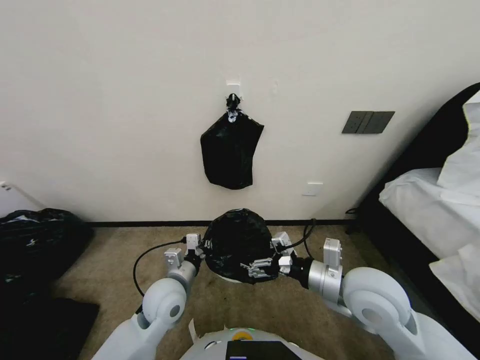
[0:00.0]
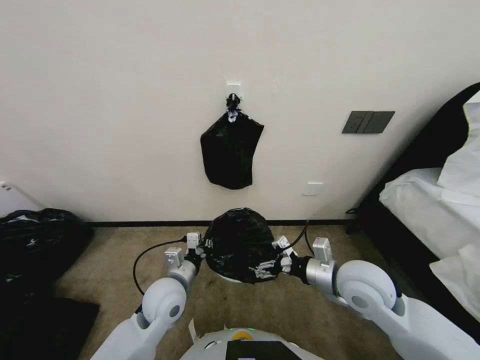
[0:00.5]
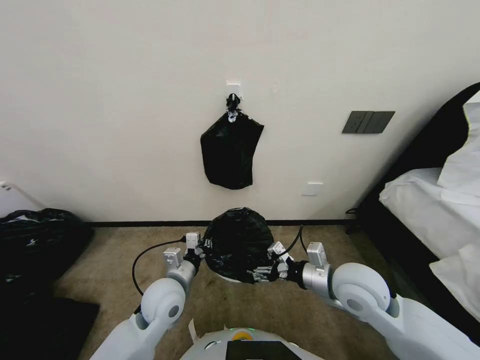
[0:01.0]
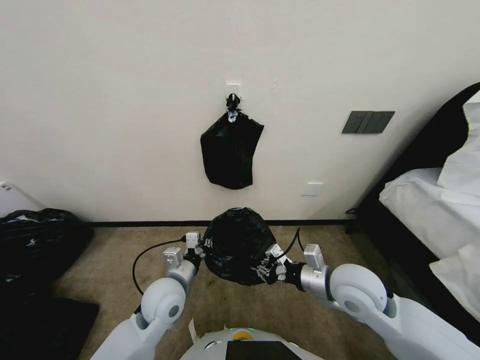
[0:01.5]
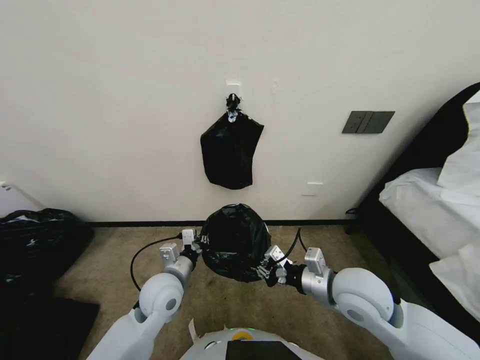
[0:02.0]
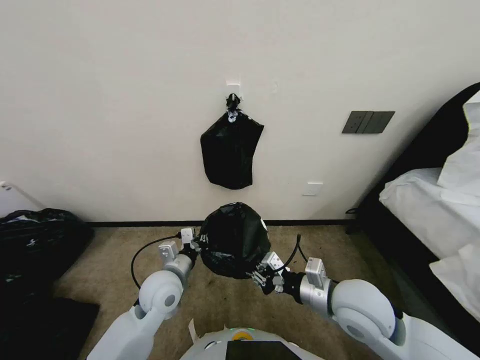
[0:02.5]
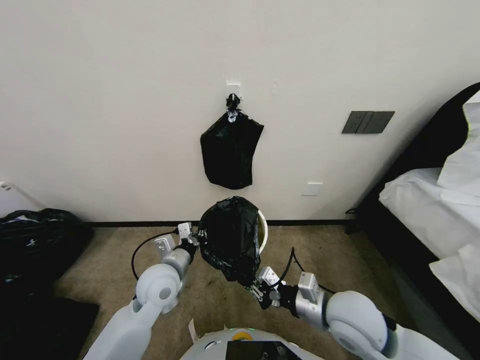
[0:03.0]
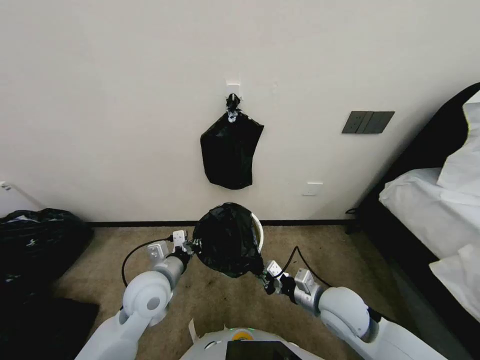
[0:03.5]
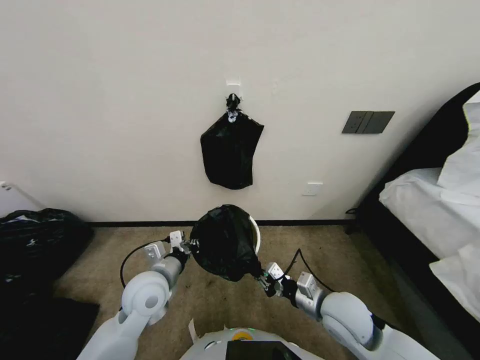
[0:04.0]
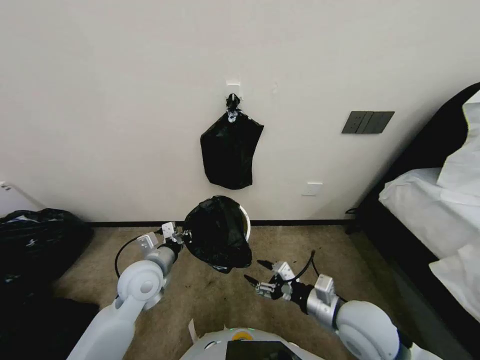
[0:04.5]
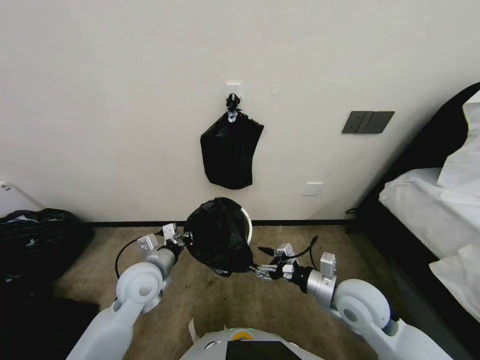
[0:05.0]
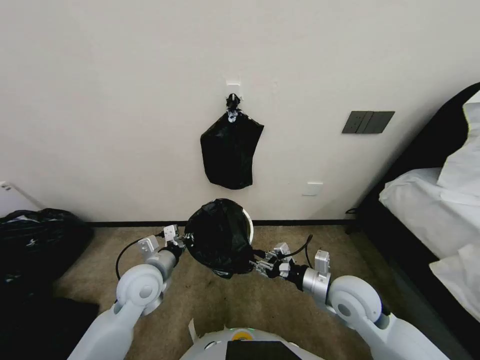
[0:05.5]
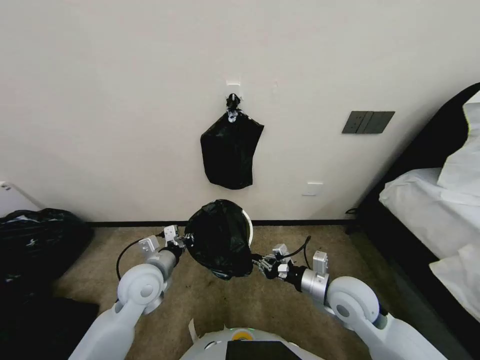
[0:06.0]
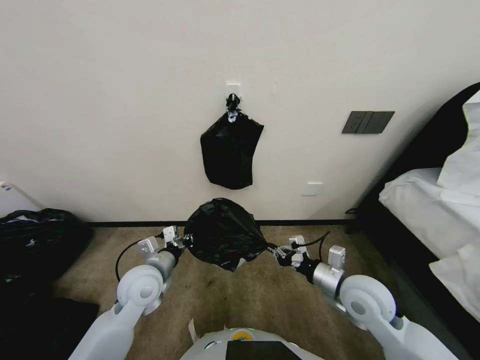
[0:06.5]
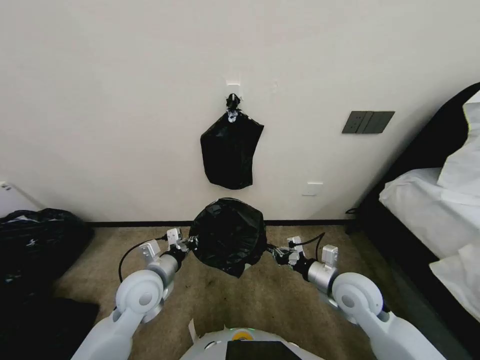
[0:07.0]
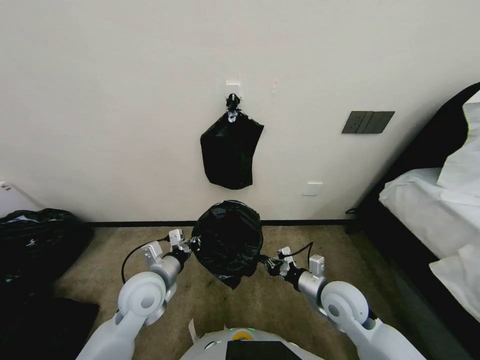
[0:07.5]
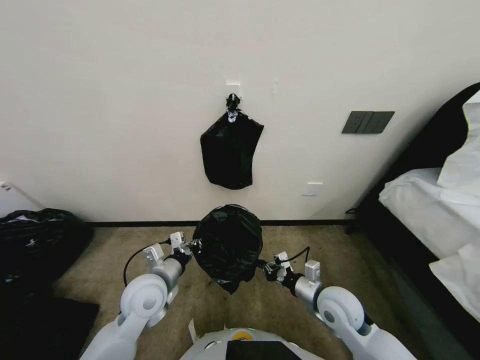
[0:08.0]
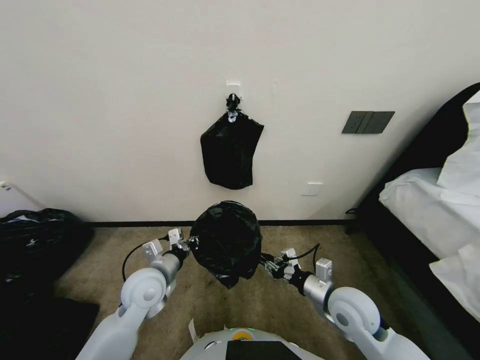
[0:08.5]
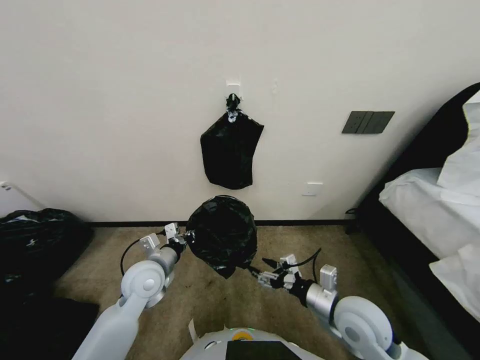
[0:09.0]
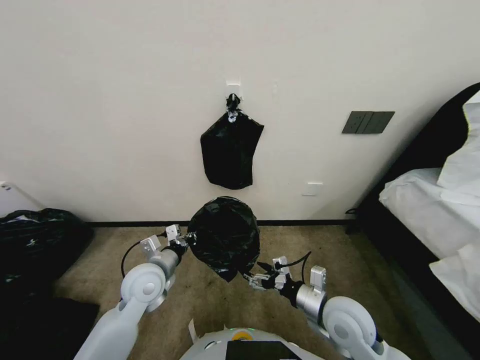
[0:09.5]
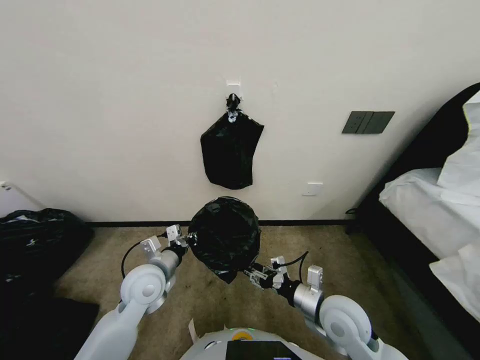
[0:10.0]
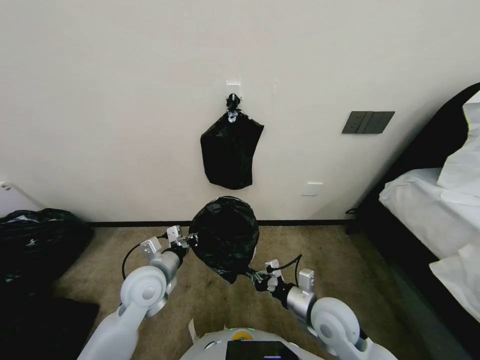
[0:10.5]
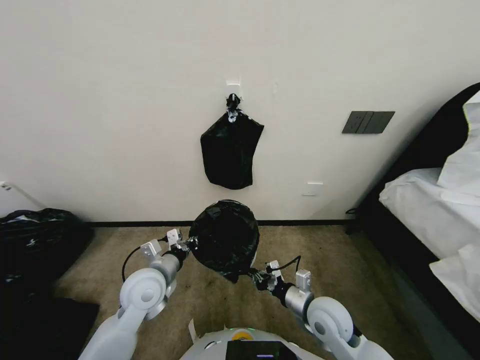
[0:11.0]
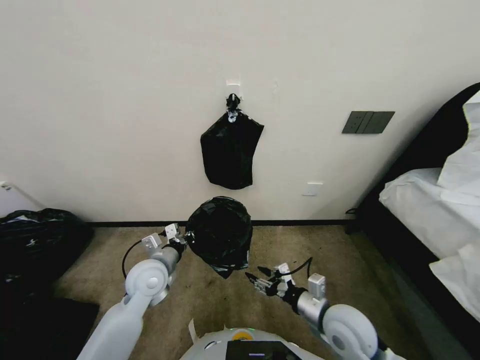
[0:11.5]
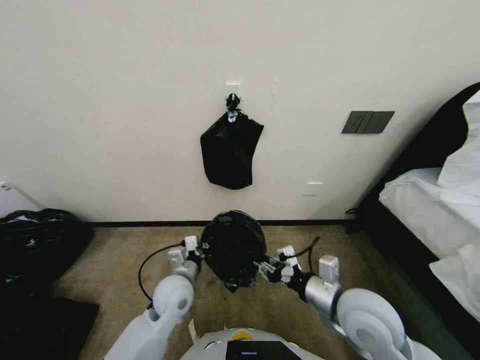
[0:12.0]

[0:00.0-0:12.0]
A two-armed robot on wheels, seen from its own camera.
Task of the whole recording: Place a trash bag onto the trash bin.
0:00.0 to 0:02.0: The right gripper closes its fingers.
0:02.0 to 0:04.0: The right gripper moves downward, roughly 10 cm.
0:04.0 to 0:06.0: The right gripper opens, then closes once more.
0:06.0 to 0:08.0: The right gripper heads downward, covering about 5 cm.
0:08.0 to 0:10.0: The right gripper opens its fingers.
0:10.0 to 0:12.0: The right gripper goes some 5 cm upward, and closes, then opens again. Meanwhile the left gripper shifts by roughly 5 cm.

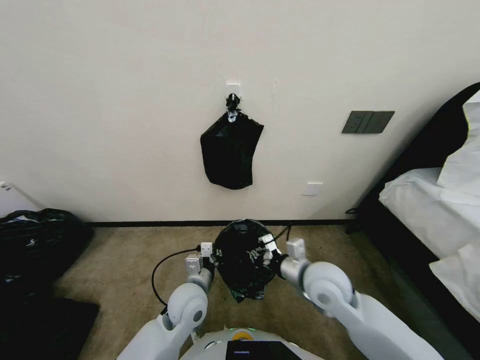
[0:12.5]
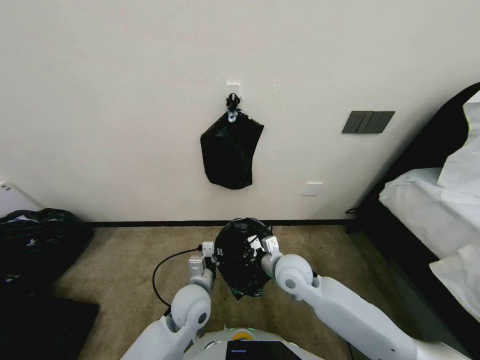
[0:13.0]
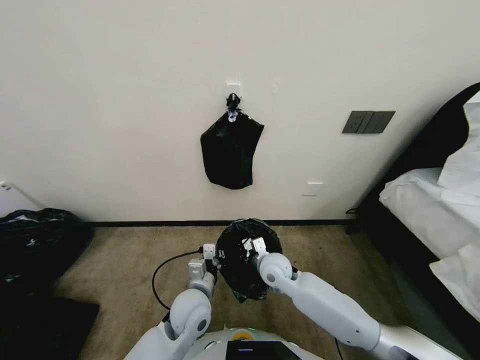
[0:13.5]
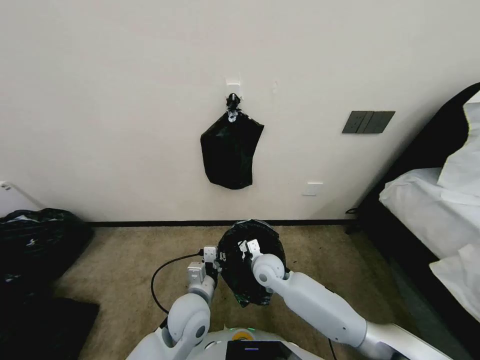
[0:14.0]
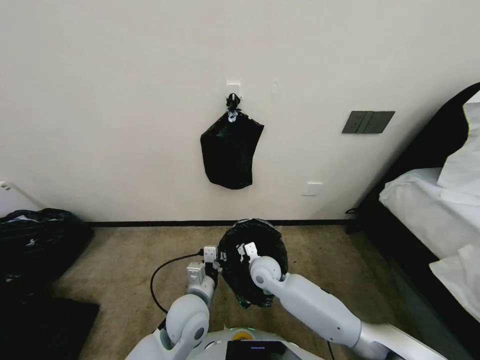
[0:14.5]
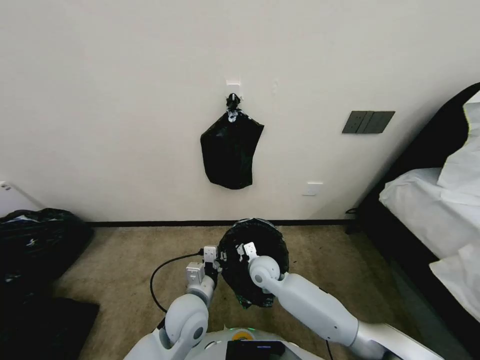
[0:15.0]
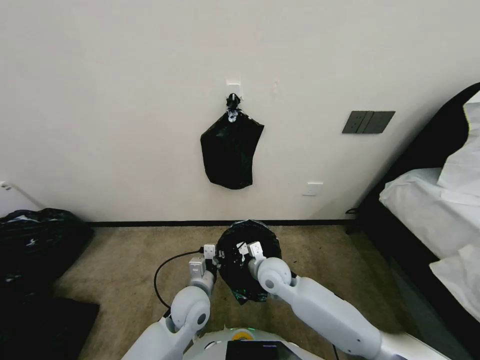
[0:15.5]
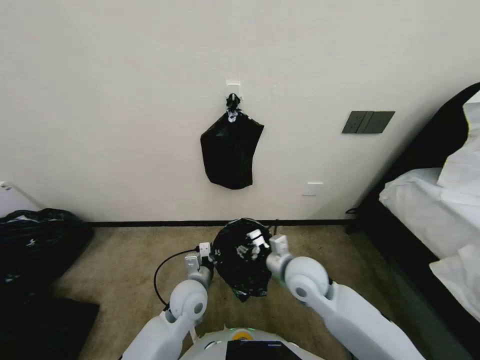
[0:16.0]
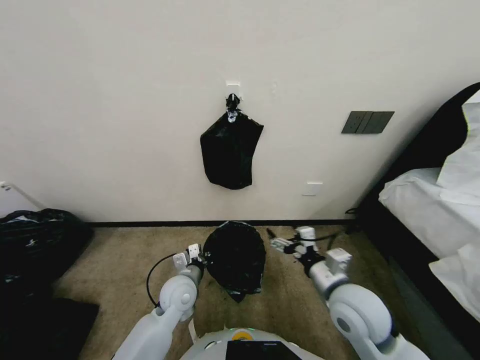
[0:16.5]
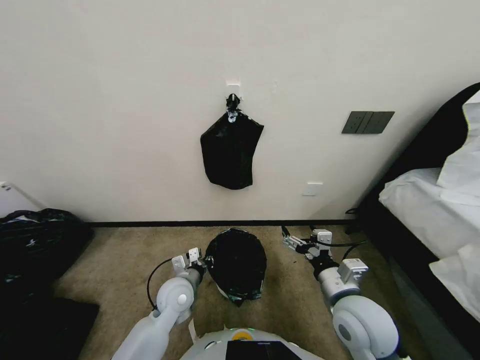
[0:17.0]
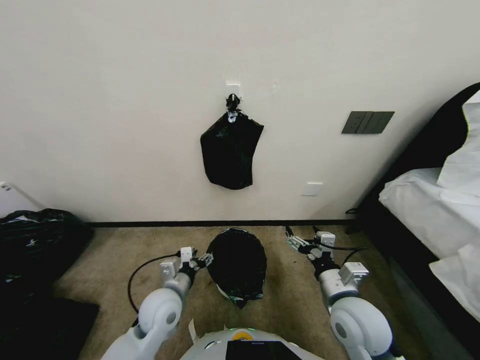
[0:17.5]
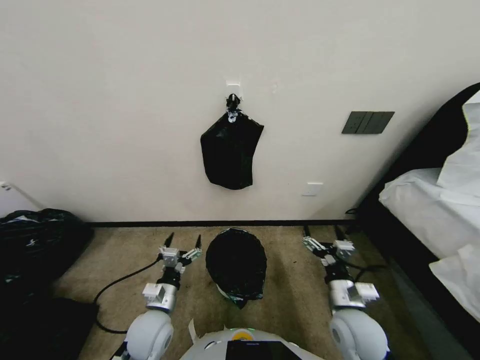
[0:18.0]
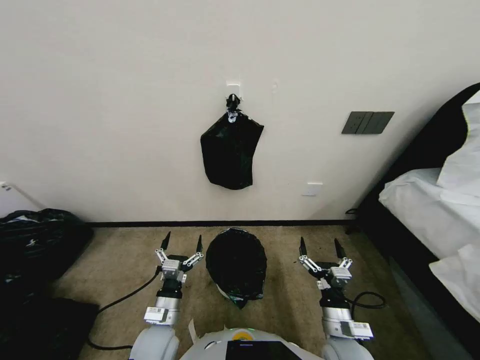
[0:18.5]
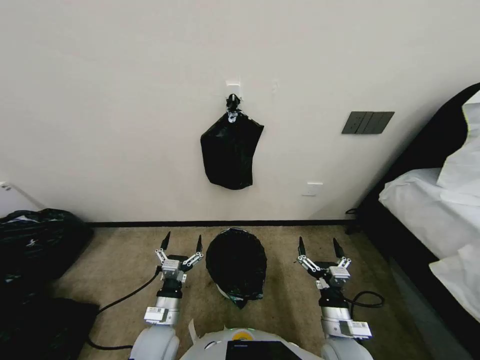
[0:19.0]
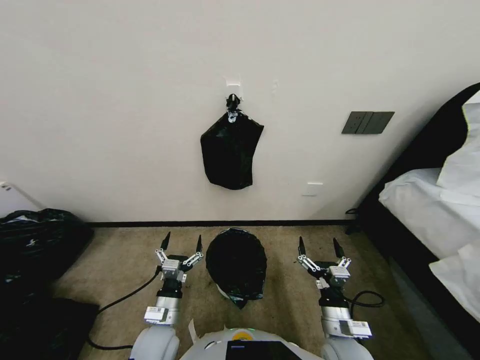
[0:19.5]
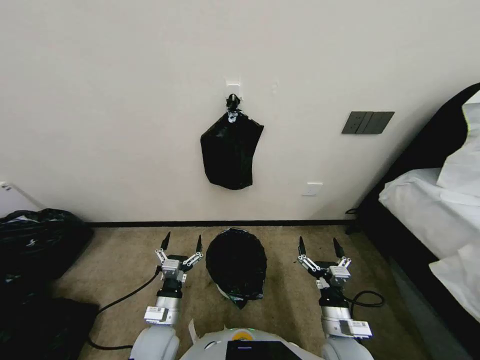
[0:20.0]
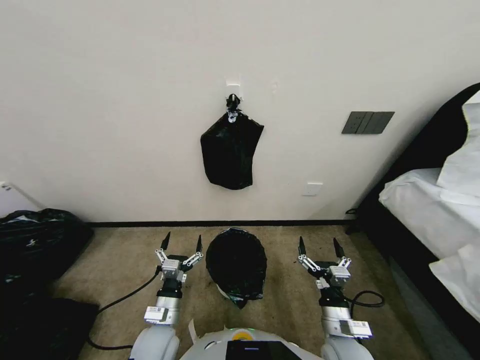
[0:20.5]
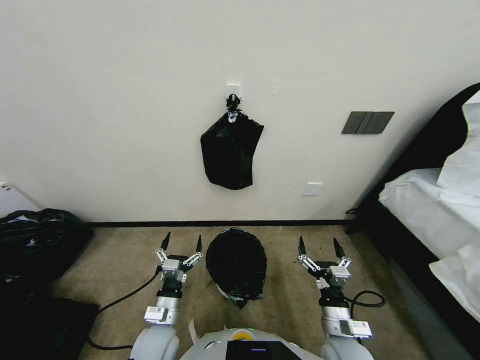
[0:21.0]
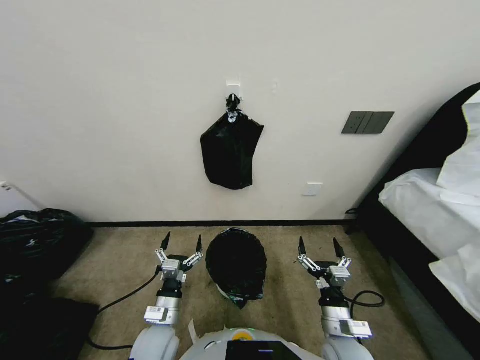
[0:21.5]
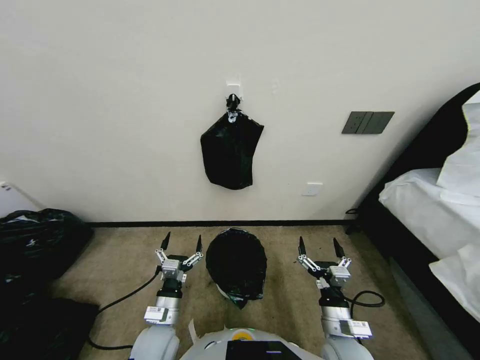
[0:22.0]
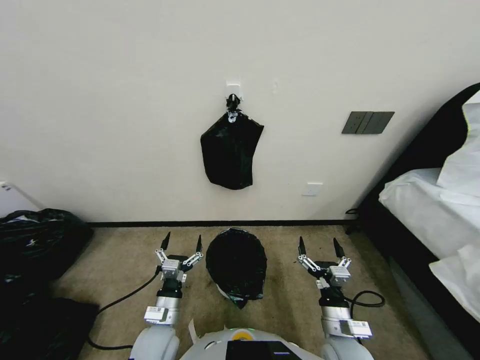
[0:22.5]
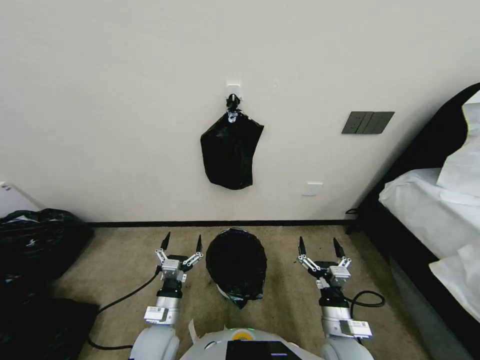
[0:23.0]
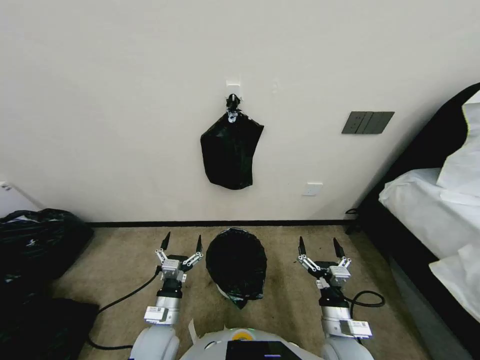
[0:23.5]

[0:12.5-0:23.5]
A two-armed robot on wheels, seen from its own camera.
Task of the whole recording: Place a trash bag onto the trash bin.
0:12.5 to 0:14.5: The right gripper goes roughly 20 cm downward, to the left and forward.
0:14.5 to 0:16.0: The right gripper travels upward, to the right and backward by about 15 cm; the left gripper ends up roughly 5 cm from where it was.
0:16.0 to 0:18.0: The left gripper is displaced to the left and backward by approximately 10 cm, and opens its fingers; the right gripper travels to the right and backward by approximately 15 cm, and opens its fingers.
0:18.0 to 0:20.0: The right gripper heads downward, covering some 5 cm.
0:20.0 to 0:23.5: Both grippers stay about where they are.

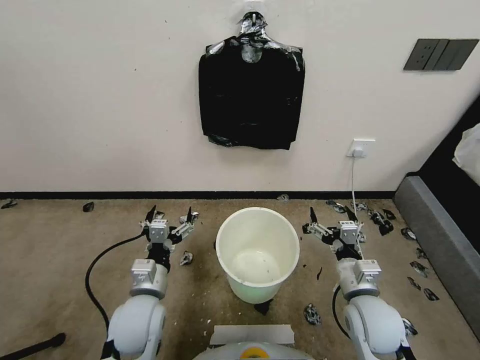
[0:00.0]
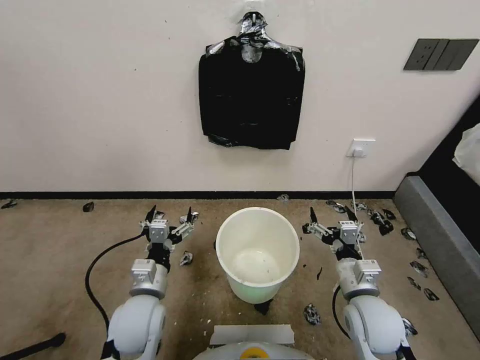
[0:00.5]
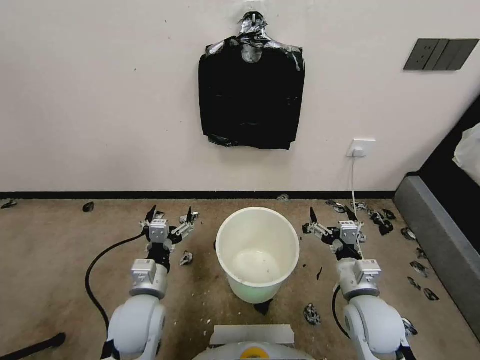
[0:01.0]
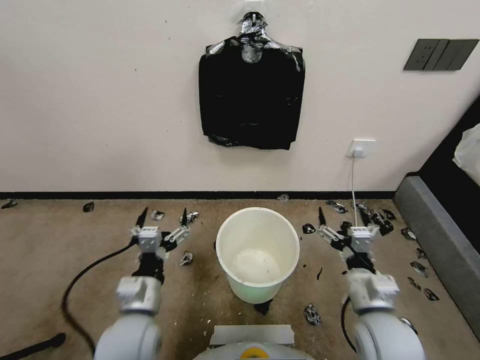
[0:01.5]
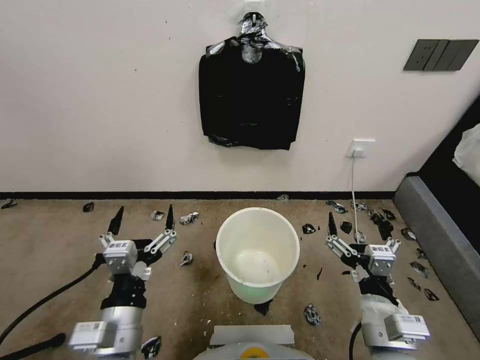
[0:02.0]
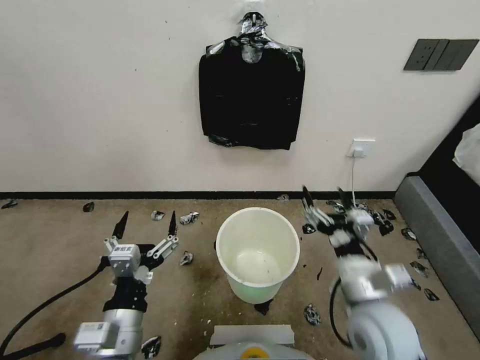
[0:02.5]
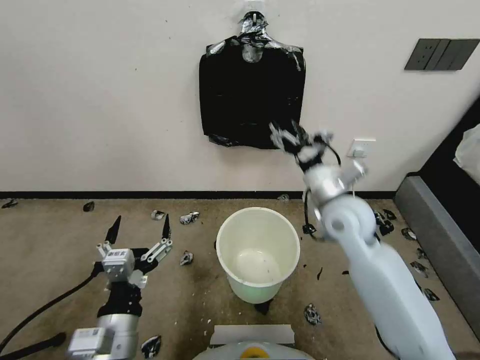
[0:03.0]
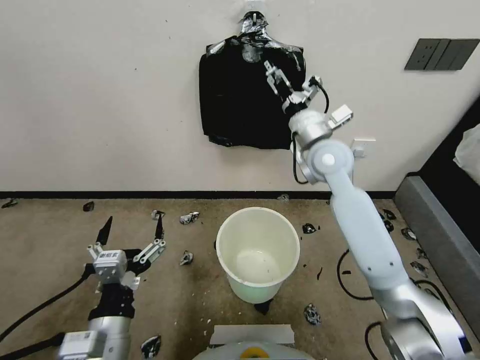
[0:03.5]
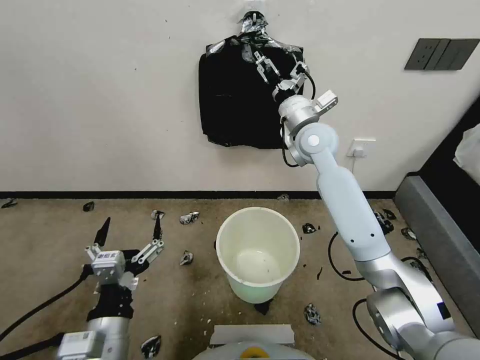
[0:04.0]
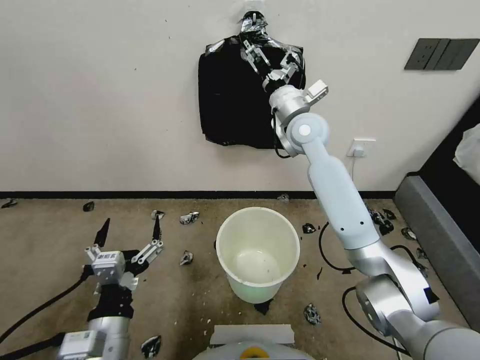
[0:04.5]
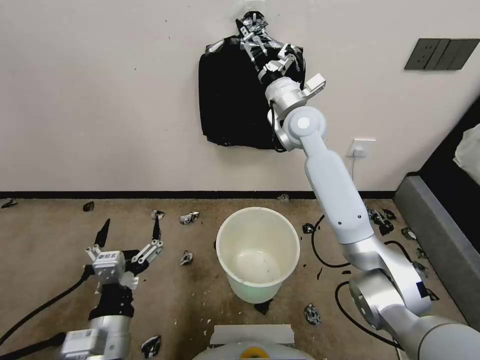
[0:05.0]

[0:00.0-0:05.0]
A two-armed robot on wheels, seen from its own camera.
Task of the whole recording: Place a trash bag onto the trash bin.
0:02.5 to 0:05.0: The right gripper heads forward and upward, covering some 40 cm.
